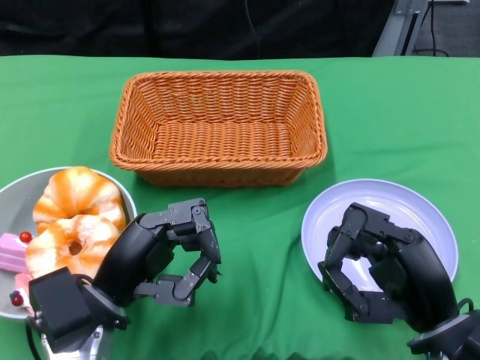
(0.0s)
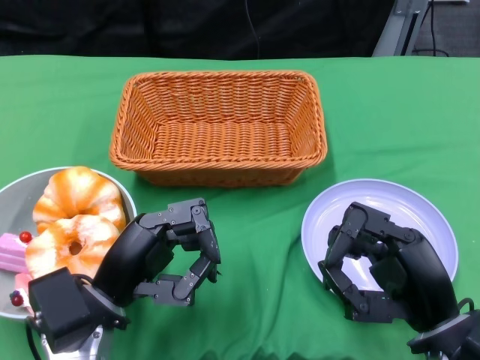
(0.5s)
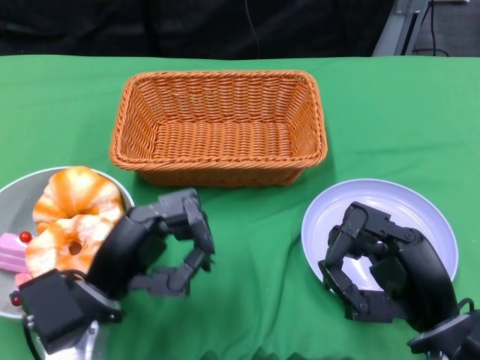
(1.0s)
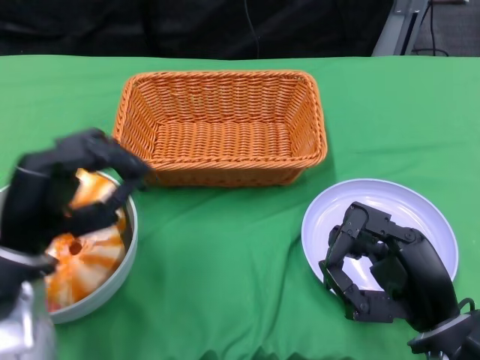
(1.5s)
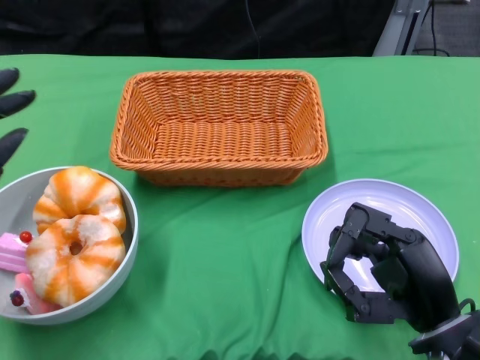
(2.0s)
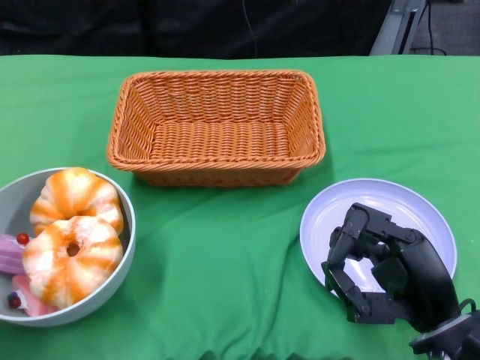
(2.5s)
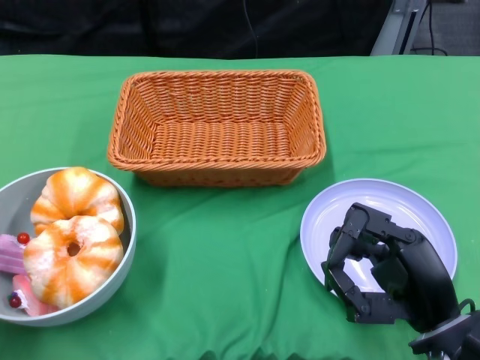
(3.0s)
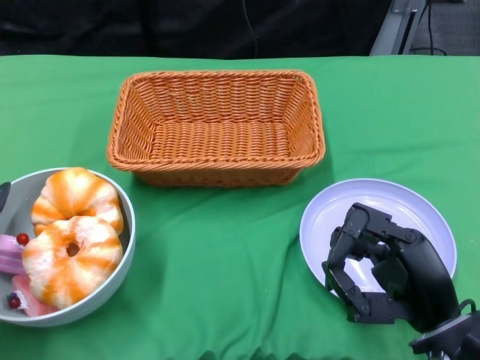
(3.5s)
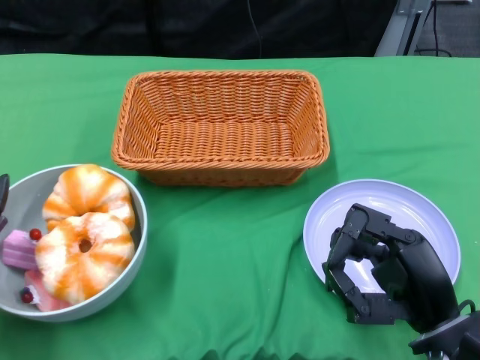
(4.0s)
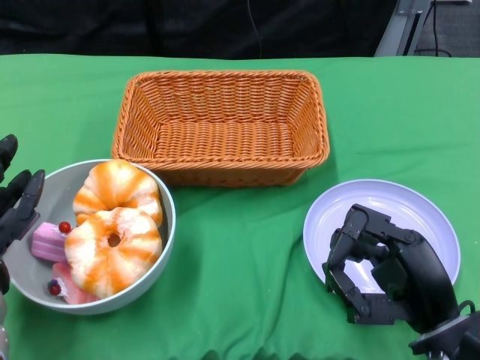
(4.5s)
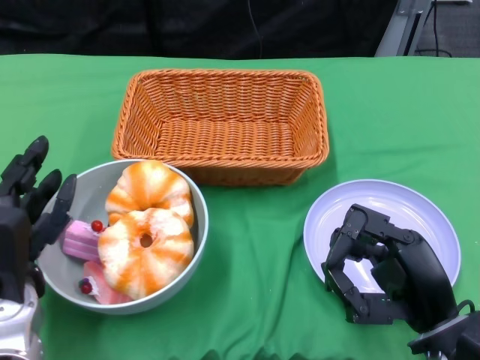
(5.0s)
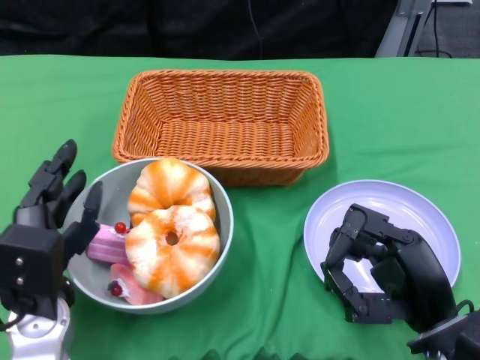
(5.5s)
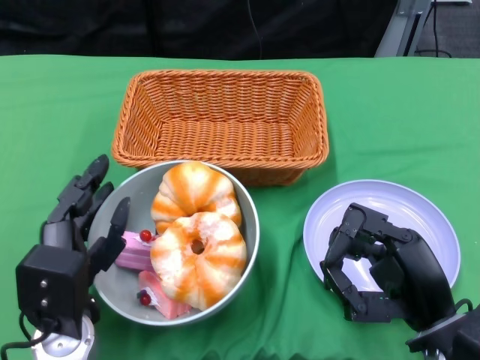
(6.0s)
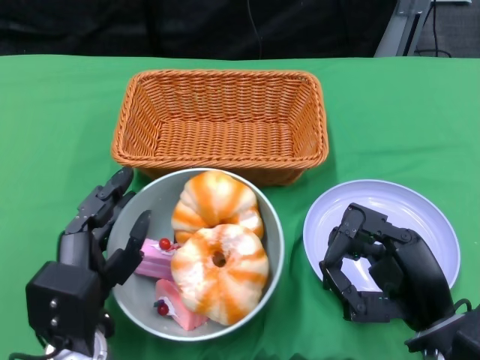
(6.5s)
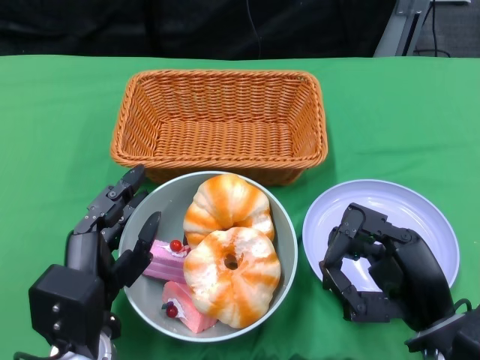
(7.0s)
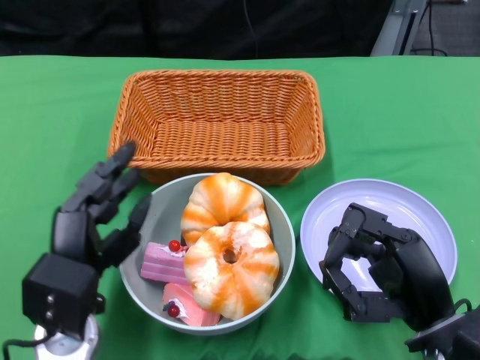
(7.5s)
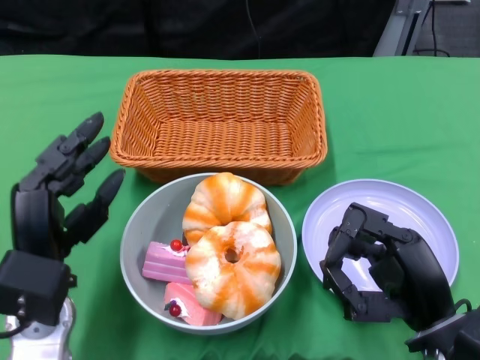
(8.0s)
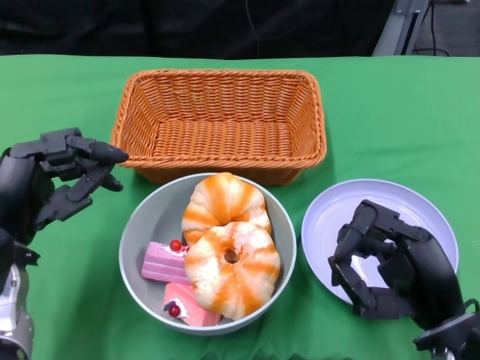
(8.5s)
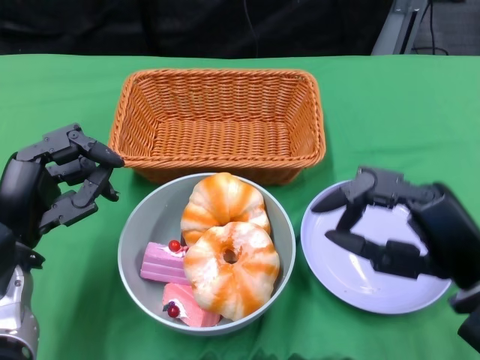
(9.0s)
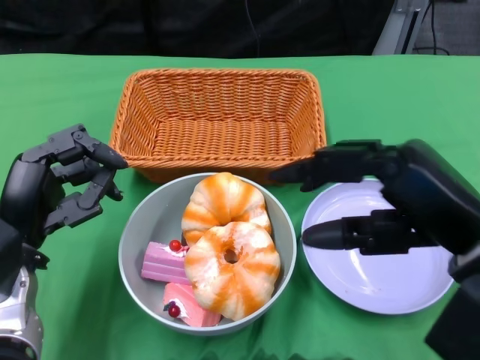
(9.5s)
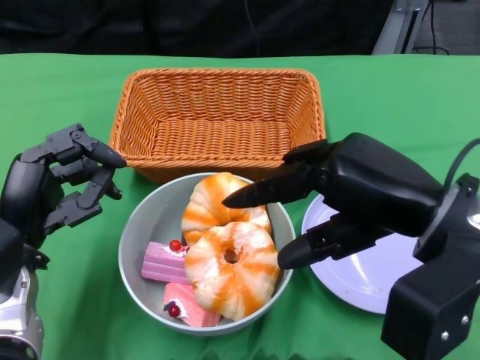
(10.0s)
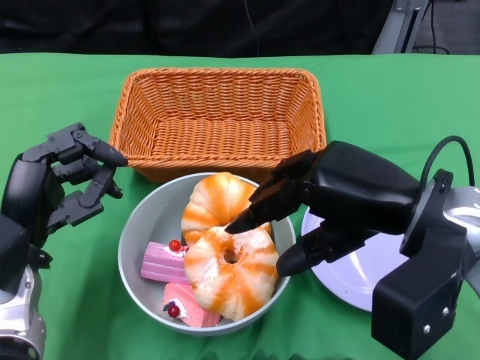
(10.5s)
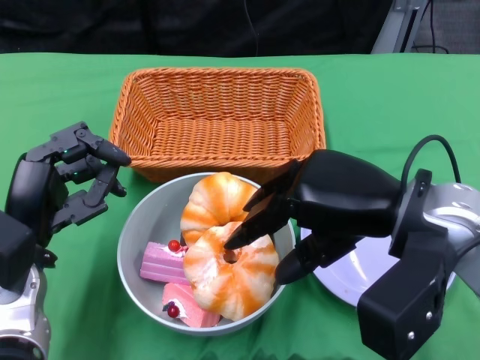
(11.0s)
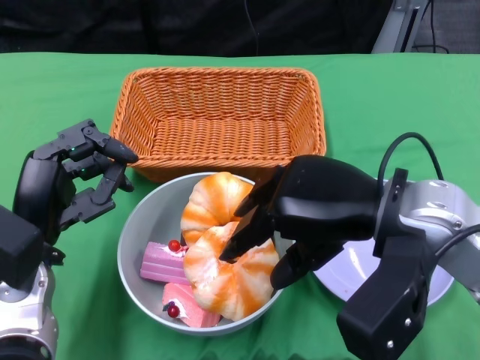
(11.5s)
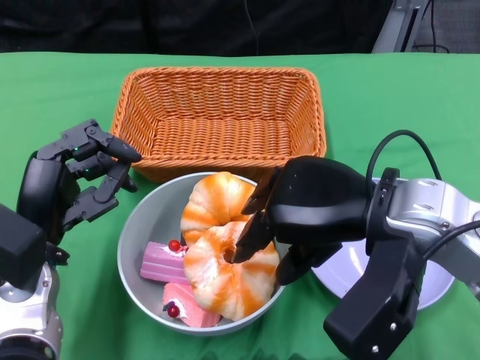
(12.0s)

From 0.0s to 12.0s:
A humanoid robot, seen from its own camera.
Step, from 0.0s to 7.0s: Push the bowl to the center of the table using the left gripper.
From 2.0s to 4.0s: The left hand travels downward by about 5 cm.
From 4.0s to 6.0s: The left hand shifts some 10 cm to the right.
From 8.0s to 10.0s: The right hand moves upward, approximately 15 cm.
From 10.0s to 12.0s: The right hand changes place by roughly 5 cm.

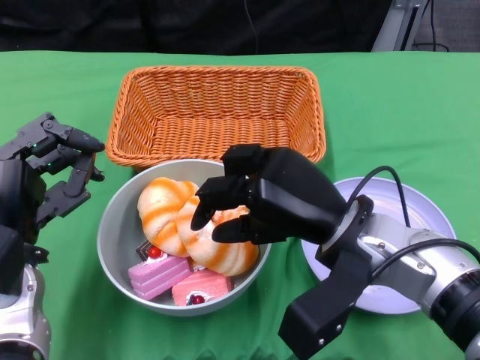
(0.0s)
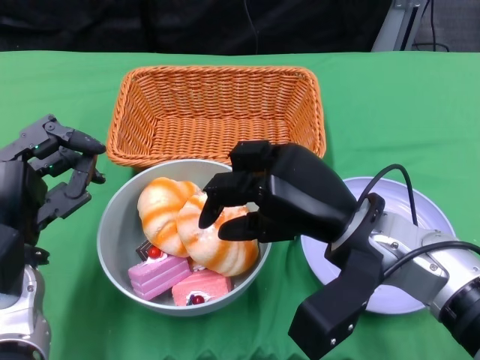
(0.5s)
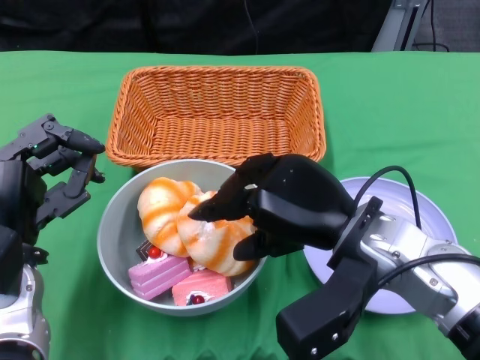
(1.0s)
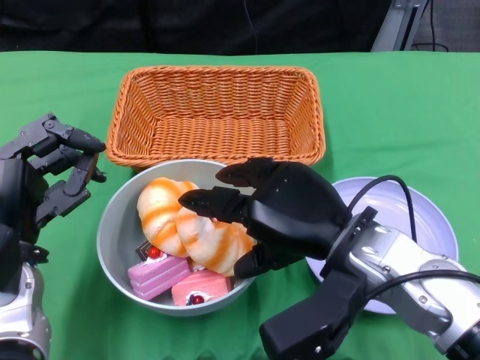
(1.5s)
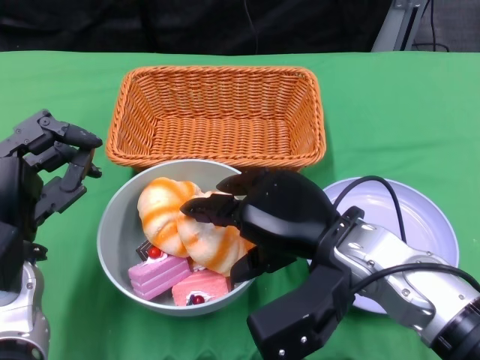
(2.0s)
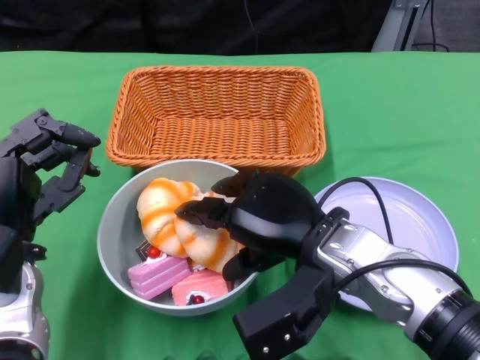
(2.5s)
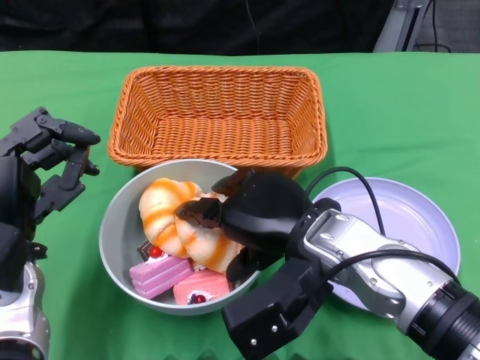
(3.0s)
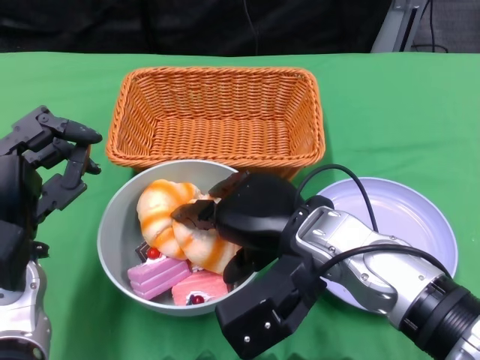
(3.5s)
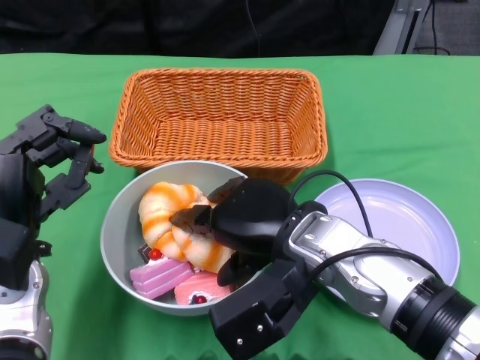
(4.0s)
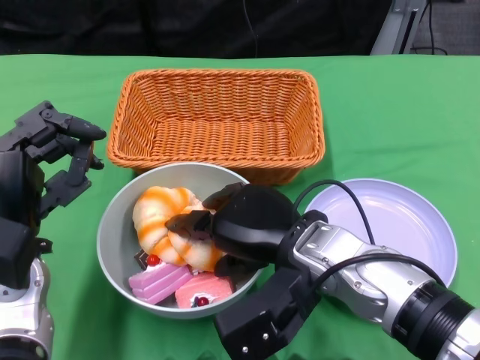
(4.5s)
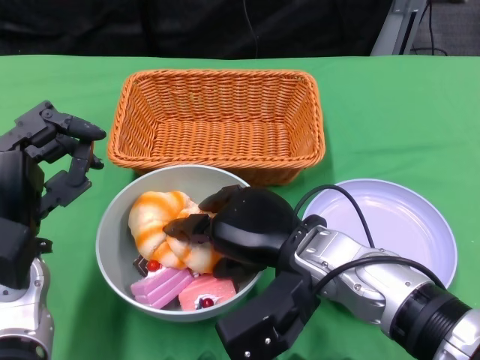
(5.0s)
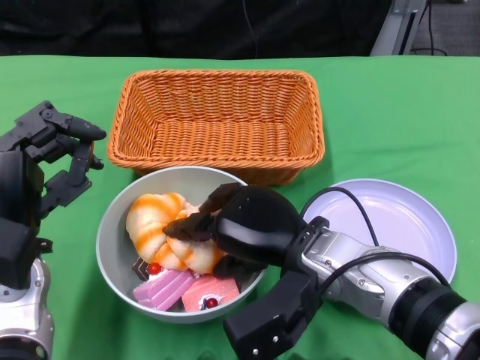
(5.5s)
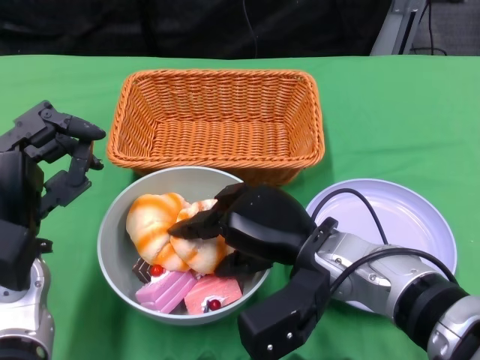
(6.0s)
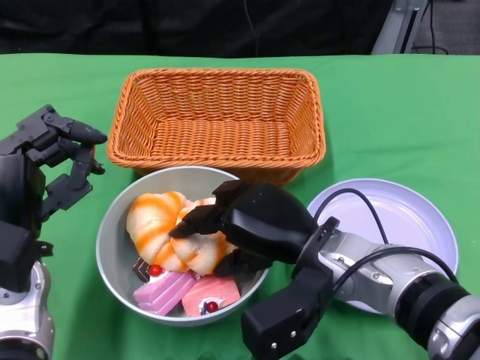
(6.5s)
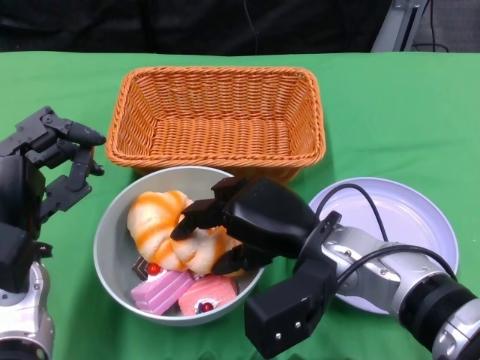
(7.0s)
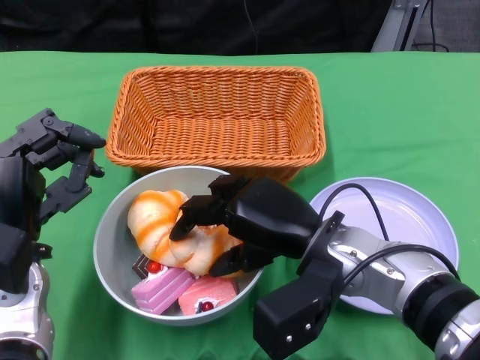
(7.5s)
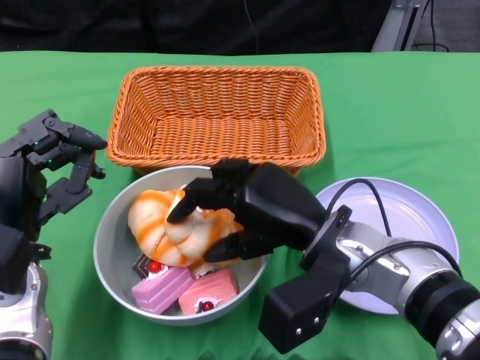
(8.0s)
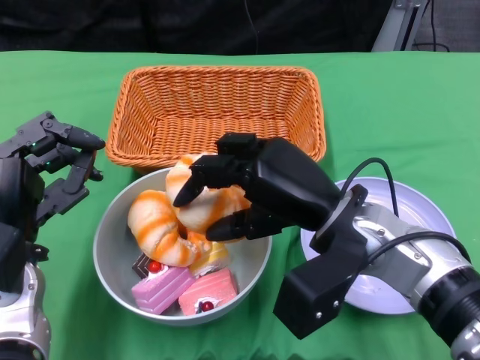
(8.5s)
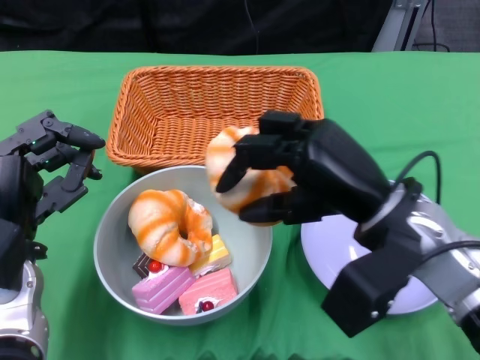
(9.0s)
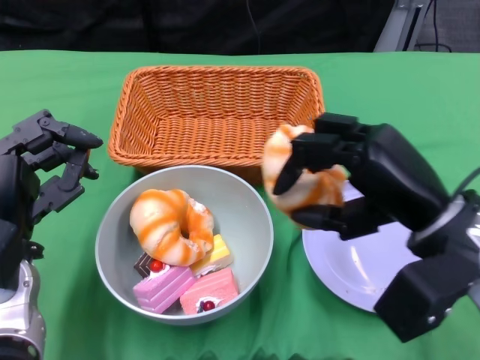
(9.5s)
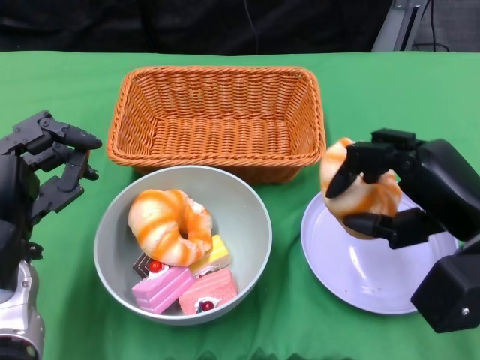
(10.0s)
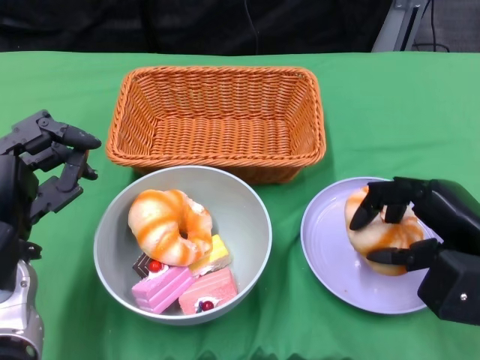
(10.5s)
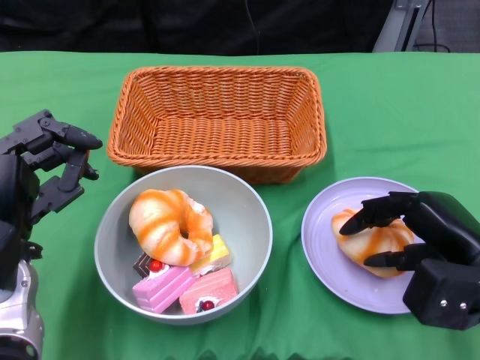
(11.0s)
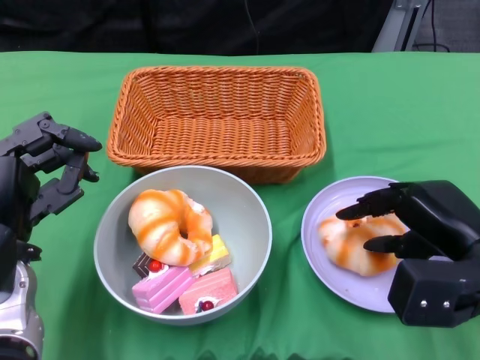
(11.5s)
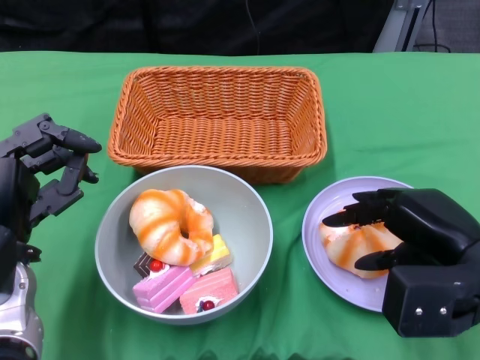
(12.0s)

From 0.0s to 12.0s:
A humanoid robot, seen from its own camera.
From 8.0s to 10.0s: The right hand heads to the right, covering approximately 15 cm.

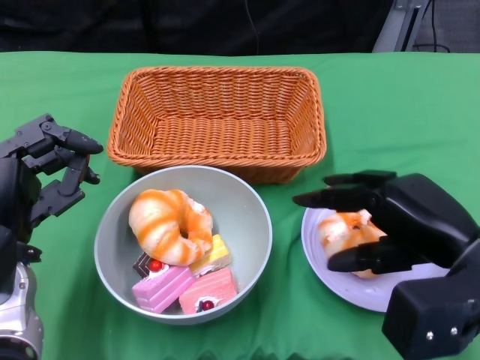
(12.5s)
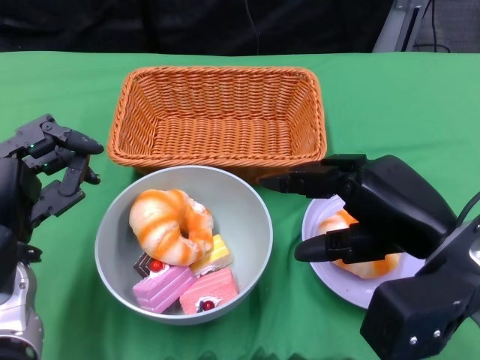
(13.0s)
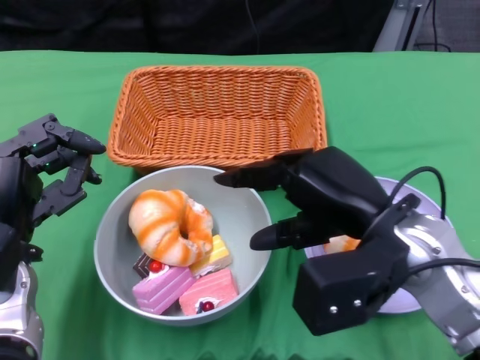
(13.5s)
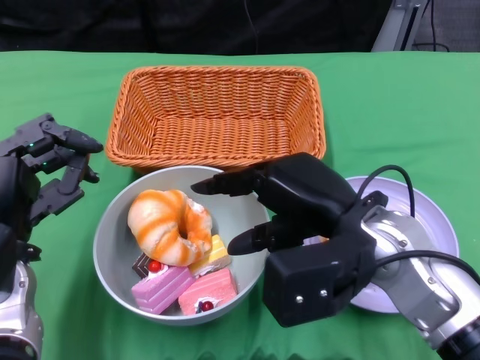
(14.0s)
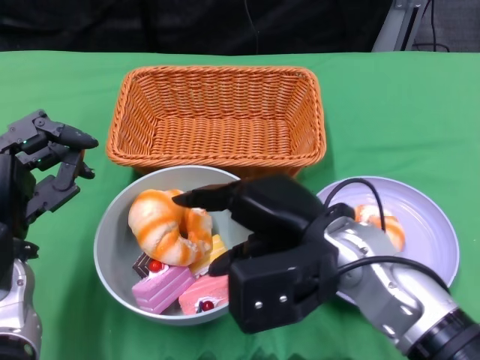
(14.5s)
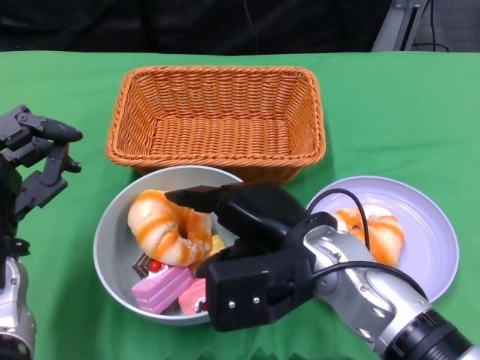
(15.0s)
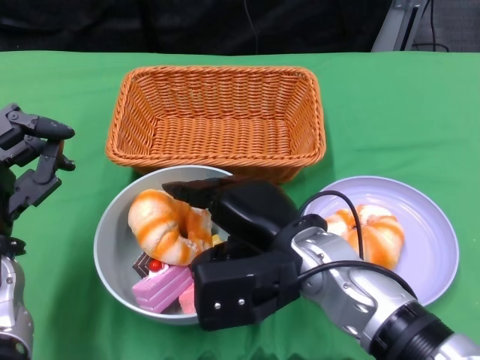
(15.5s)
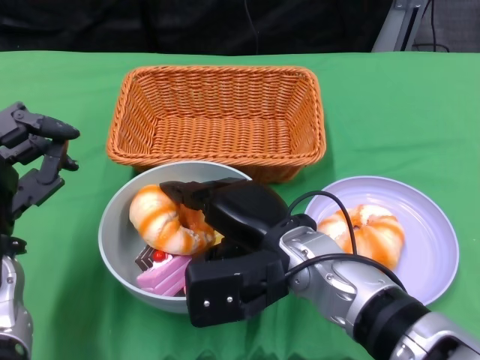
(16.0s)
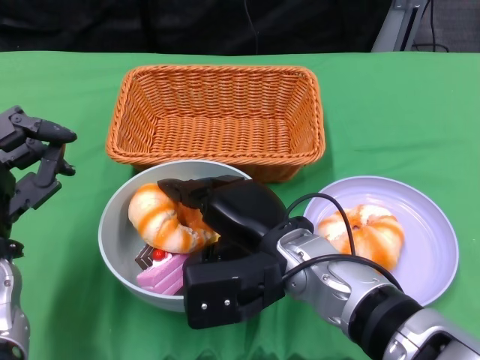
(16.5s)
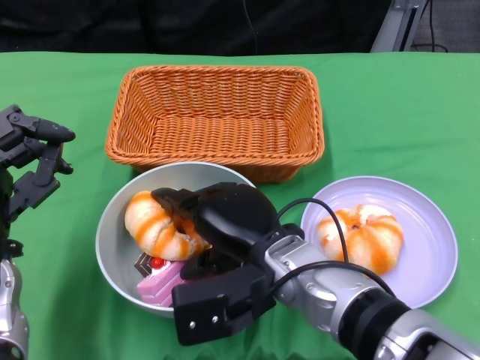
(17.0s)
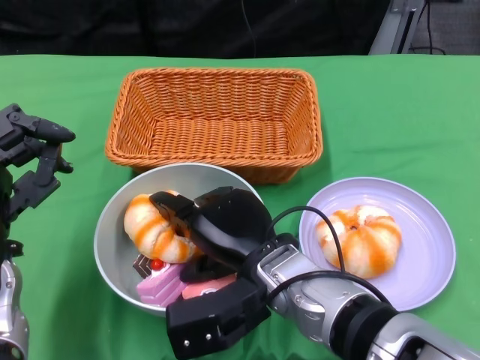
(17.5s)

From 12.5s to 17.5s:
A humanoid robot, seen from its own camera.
From 12.5s to 15.0s: The right hand heads to the left, covering about 15 cm.
From 15.0s to 17.5s: The right hand changes place by some 5 cm.
